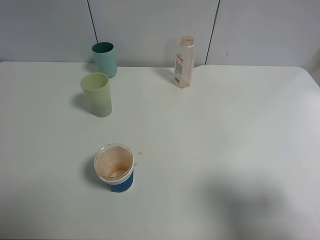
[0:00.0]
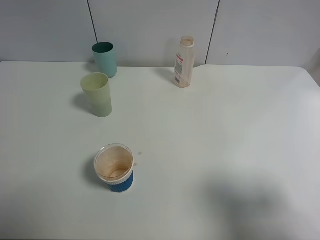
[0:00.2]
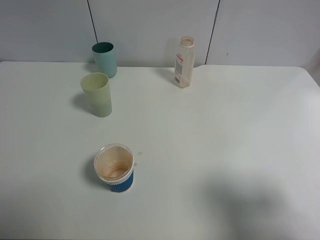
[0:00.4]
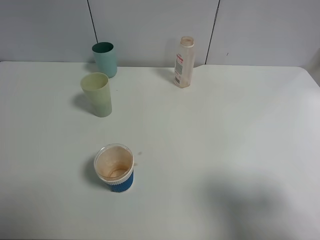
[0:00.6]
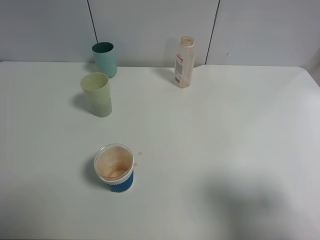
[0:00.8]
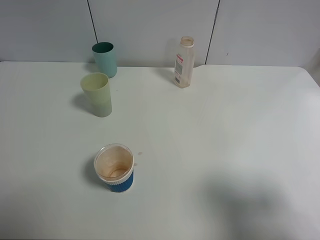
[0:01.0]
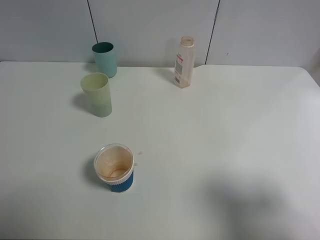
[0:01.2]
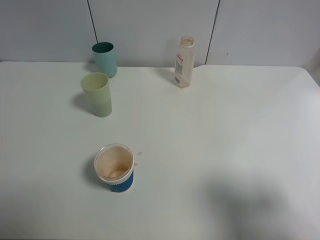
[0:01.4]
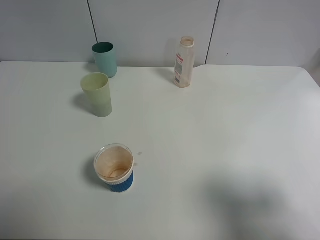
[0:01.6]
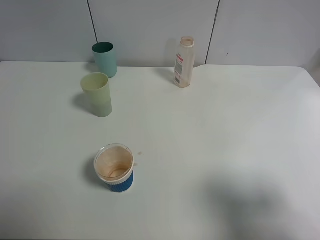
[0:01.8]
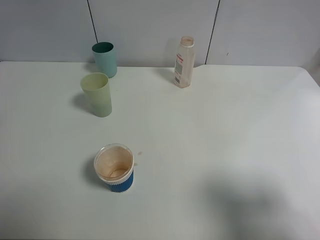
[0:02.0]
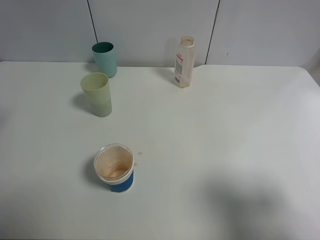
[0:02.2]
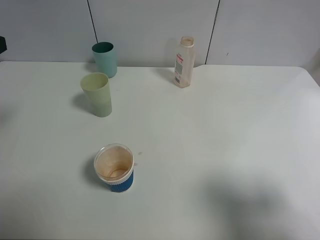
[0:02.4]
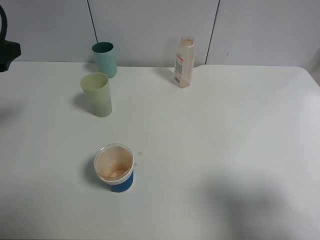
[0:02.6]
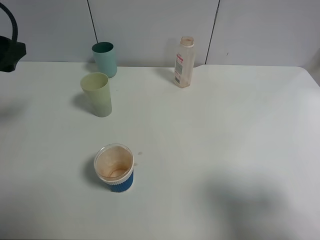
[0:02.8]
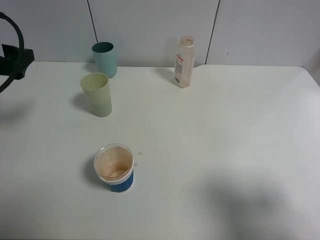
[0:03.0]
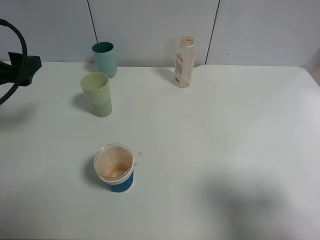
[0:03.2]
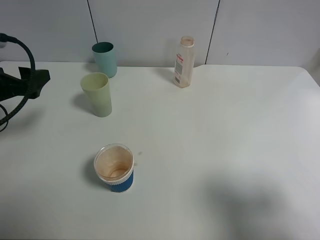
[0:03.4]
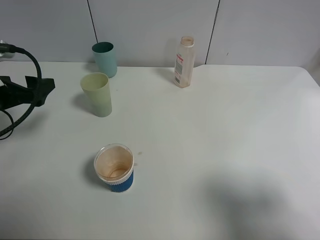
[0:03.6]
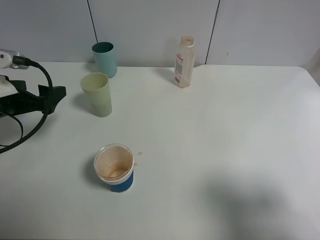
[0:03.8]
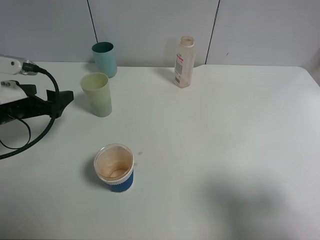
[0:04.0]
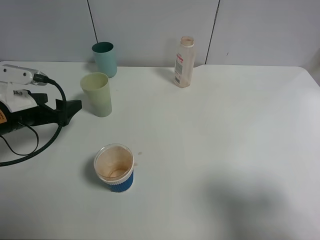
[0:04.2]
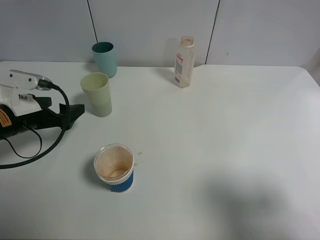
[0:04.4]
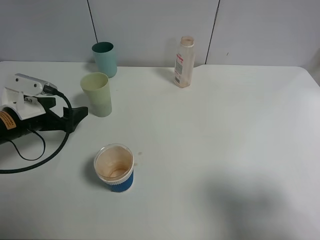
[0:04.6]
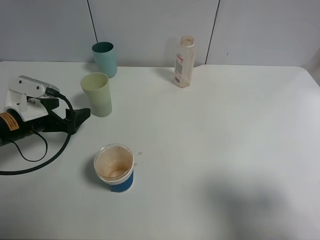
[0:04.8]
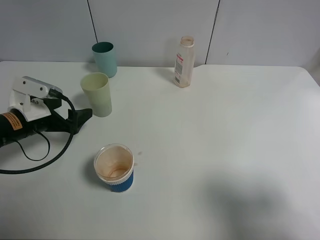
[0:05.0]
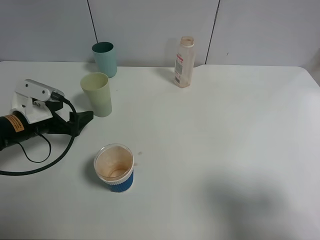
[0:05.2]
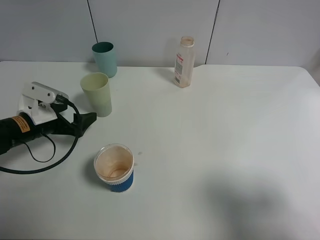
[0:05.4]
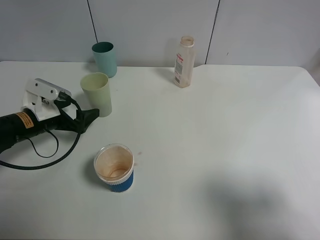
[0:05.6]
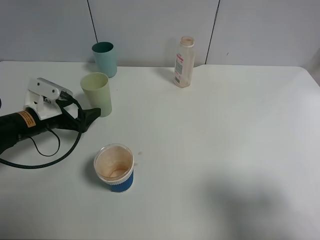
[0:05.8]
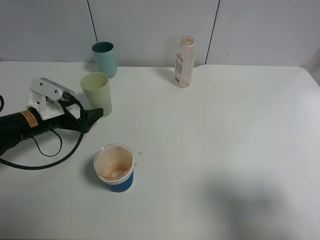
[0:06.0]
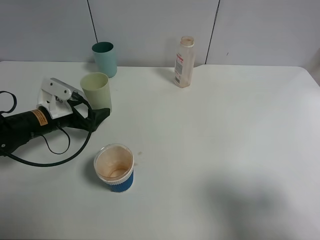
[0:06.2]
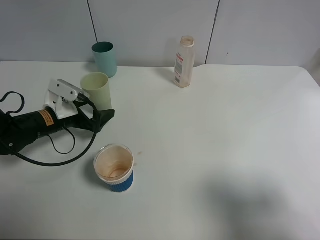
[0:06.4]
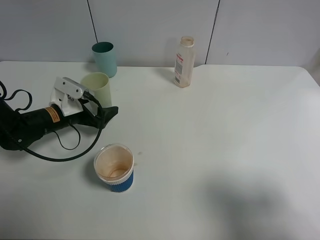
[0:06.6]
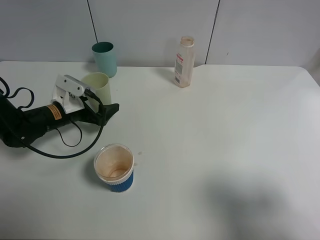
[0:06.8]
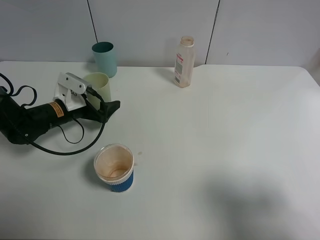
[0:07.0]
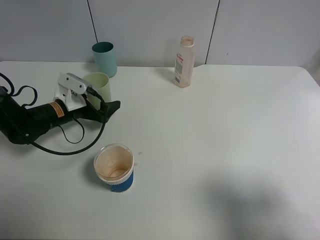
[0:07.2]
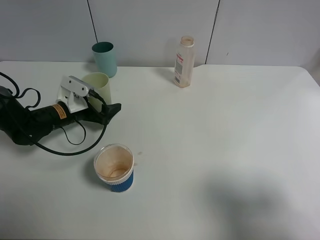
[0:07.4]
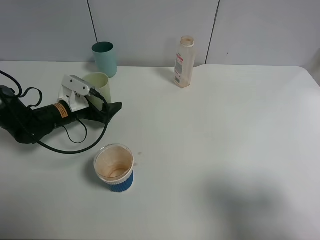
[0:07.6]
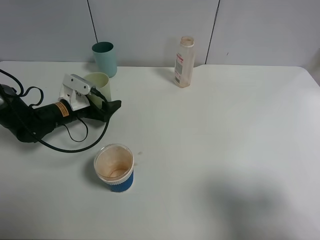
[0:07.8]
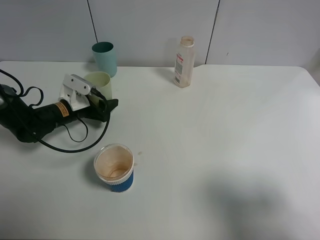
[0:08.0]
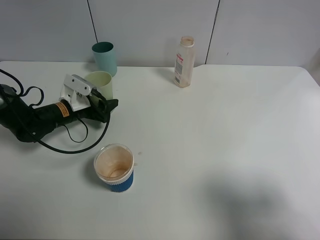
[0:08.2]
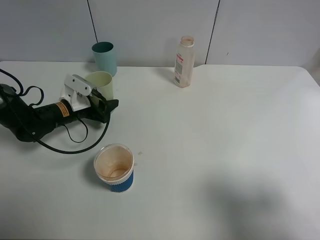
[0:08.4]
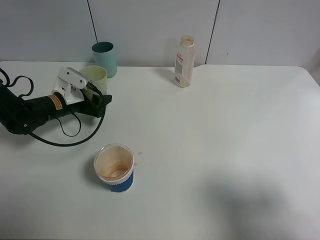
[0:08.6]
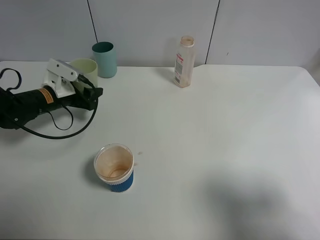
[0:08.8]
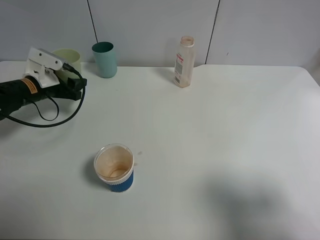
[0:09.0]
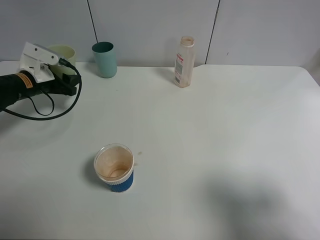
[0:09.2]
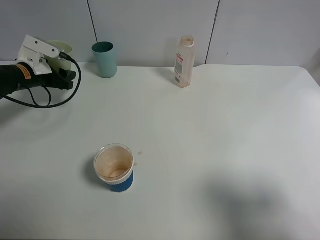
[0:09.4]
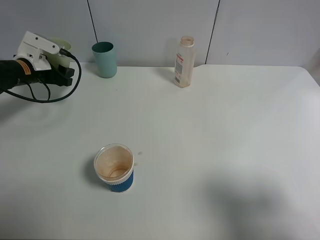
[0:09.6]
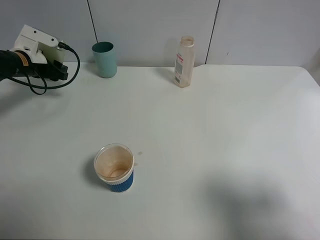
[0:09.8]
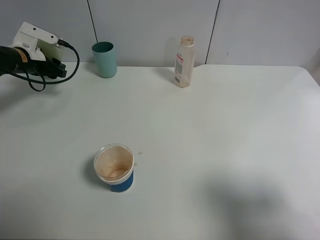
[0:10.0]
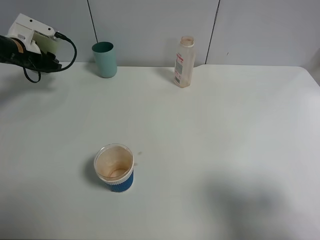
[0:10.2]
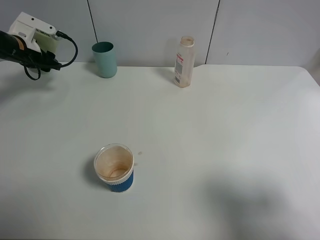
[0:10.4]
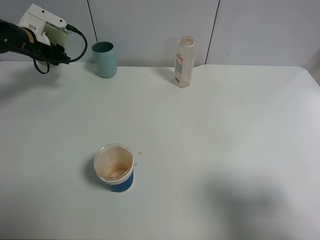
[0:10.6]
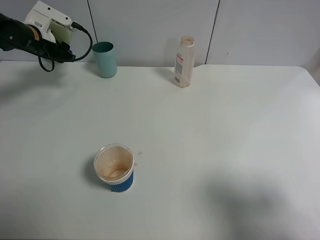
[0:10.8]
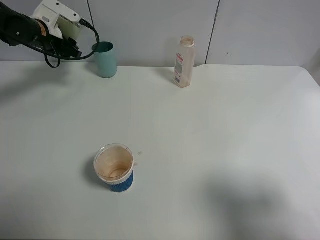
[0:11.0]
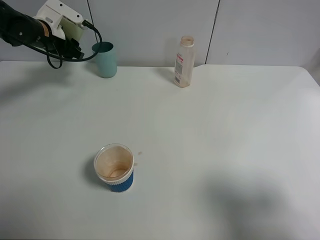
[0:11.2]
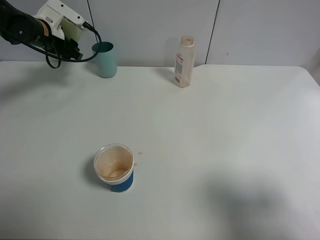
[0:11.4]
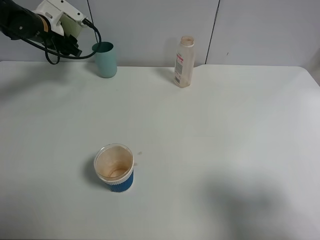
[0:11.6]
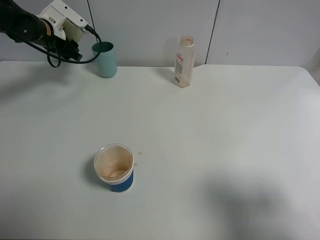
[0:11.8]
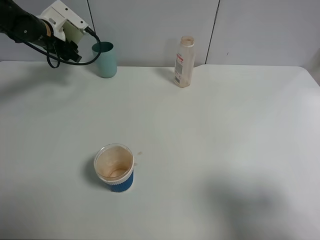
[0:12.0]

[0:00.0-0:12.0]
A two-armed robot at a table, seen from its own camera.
Task of the whole recording: use a clamp to hold the bottle of the drink, pour the beverage into a random cup, then clamp the cup containing the drink and pour the drink into another random cup.
Step, 0:00.0 to 0:09.0: Pick up the green plastic cup bottle with left gripper.
0:01.6 to 0:03.0: The left gripper shifts some 20 cm forward and downward.
0:03.0 to 0:04.4: The left gripper heads downward, covering some 10 cm.
0:04.4 to 0:06.0: The left gripper changes place by roughly 5 cm.
0:06.0 to 0:07.6: The left gripper moves forward, approximately 5 cm.
0:07.6 to 0:09.0: The left gripper goes roughly 10 cm to the left and upward, and closes its fingers.
0:09.0 to 0:10.4: The left gripper is displaced forward and upward by roughly 10 cm.
0:10.4 to 0:12.0: The left gripper moves to the right, roughly 5 cm.

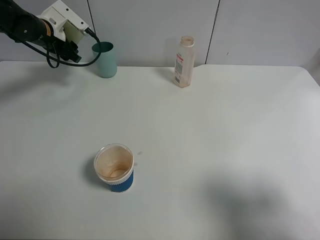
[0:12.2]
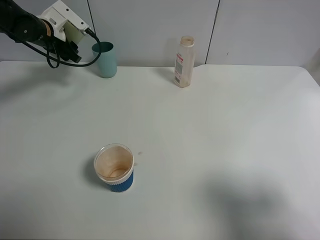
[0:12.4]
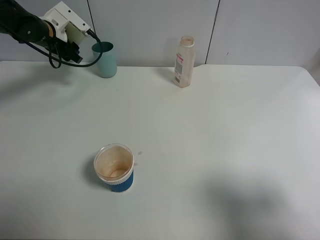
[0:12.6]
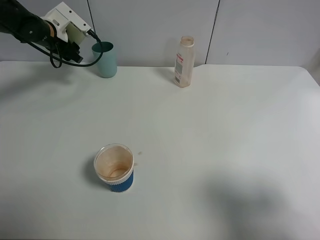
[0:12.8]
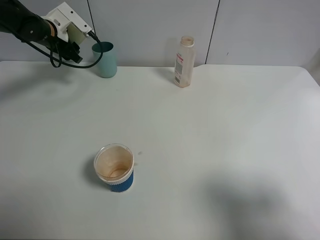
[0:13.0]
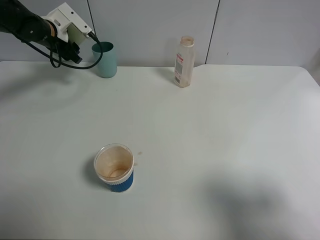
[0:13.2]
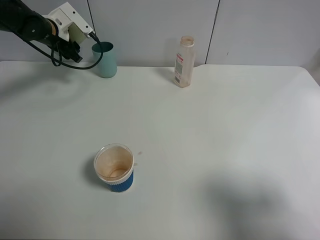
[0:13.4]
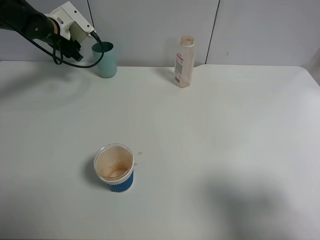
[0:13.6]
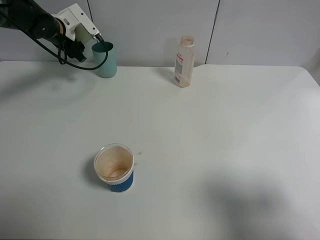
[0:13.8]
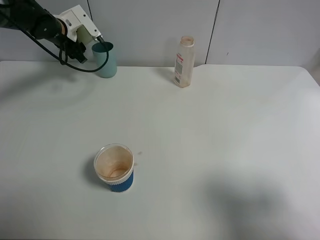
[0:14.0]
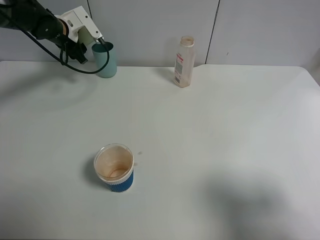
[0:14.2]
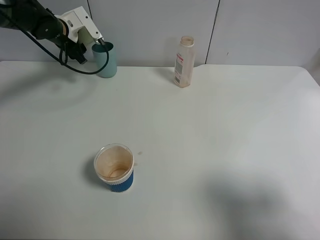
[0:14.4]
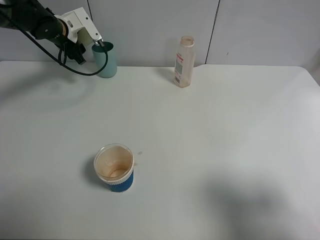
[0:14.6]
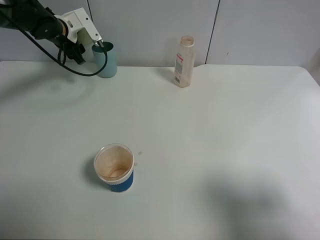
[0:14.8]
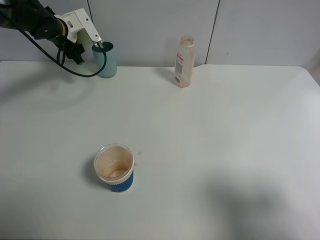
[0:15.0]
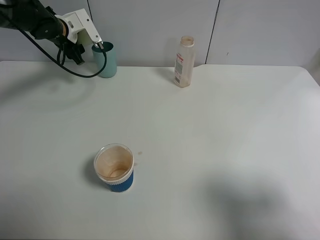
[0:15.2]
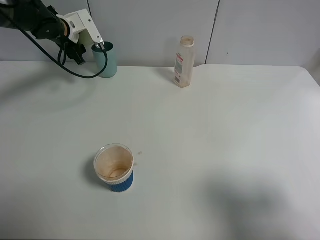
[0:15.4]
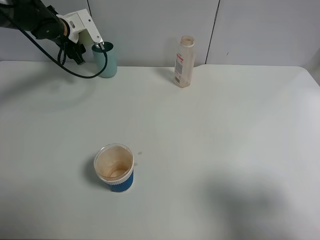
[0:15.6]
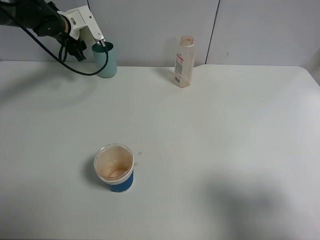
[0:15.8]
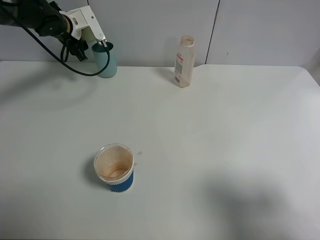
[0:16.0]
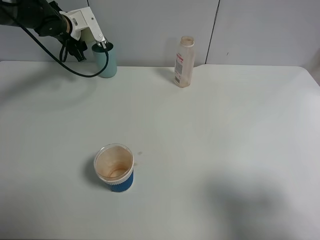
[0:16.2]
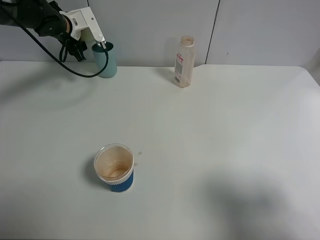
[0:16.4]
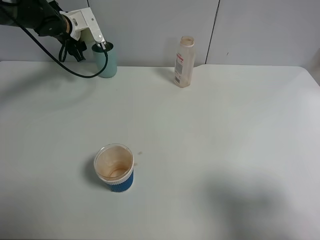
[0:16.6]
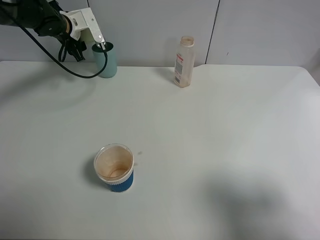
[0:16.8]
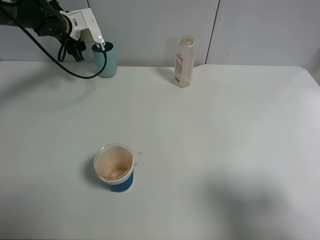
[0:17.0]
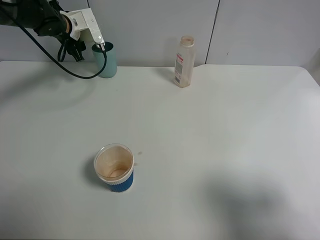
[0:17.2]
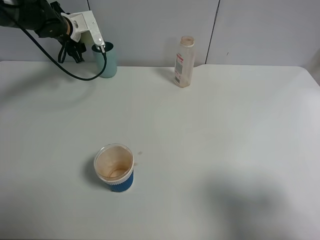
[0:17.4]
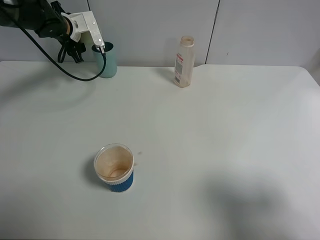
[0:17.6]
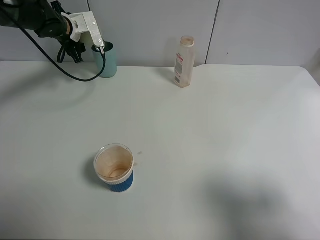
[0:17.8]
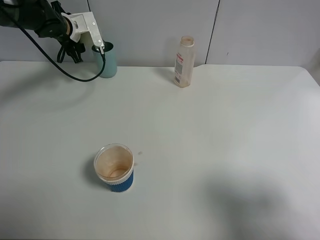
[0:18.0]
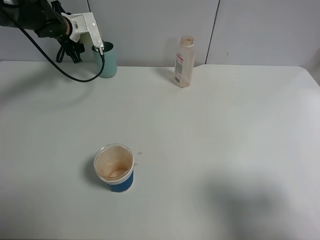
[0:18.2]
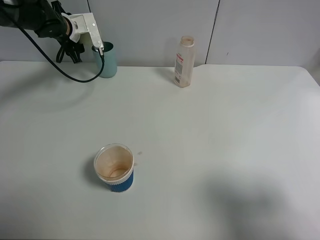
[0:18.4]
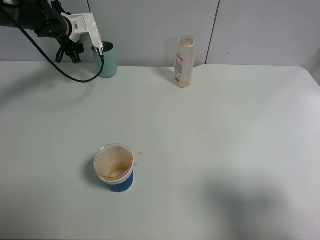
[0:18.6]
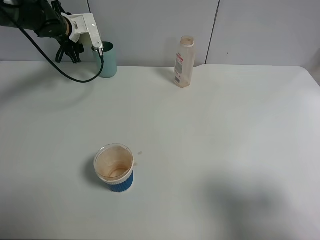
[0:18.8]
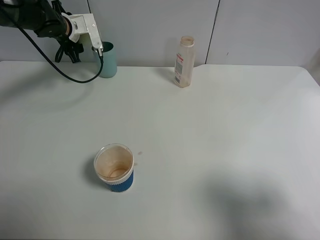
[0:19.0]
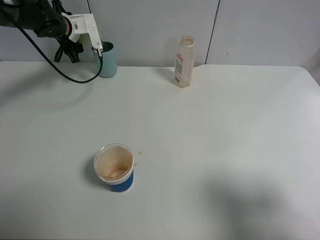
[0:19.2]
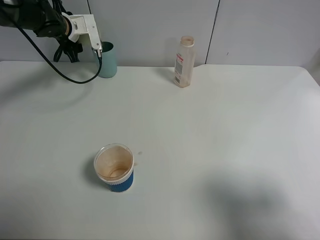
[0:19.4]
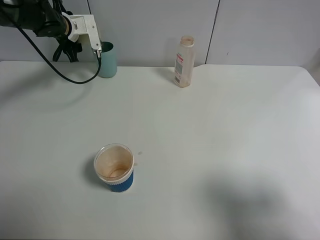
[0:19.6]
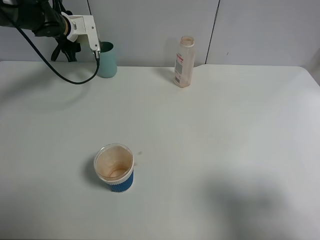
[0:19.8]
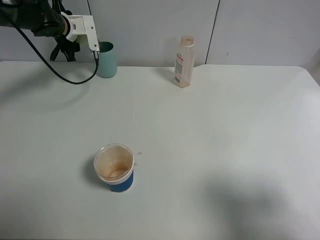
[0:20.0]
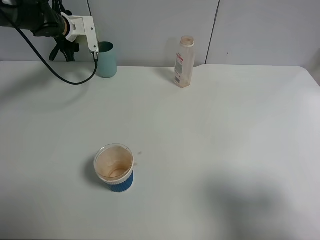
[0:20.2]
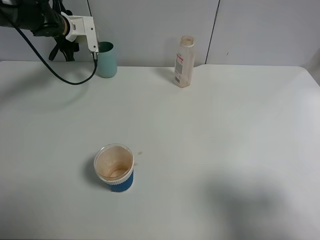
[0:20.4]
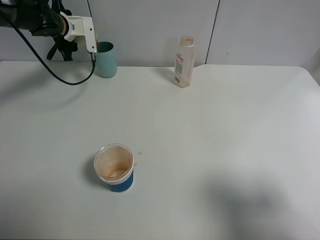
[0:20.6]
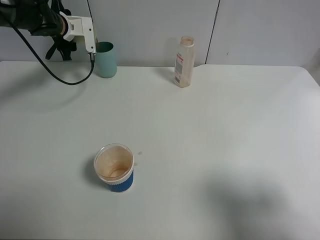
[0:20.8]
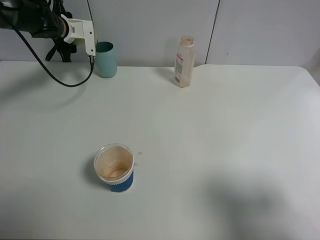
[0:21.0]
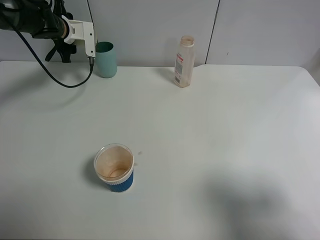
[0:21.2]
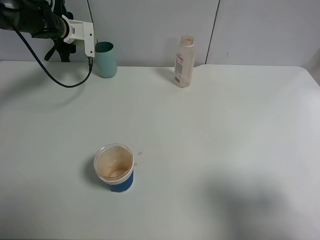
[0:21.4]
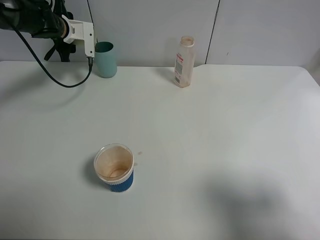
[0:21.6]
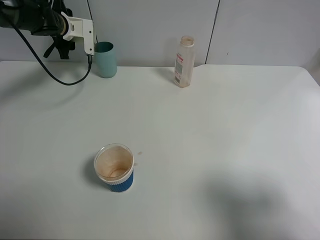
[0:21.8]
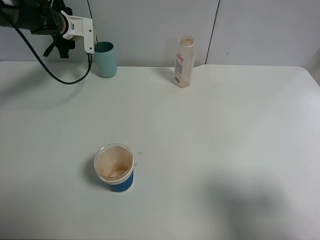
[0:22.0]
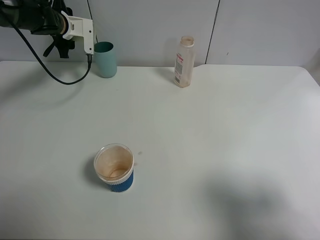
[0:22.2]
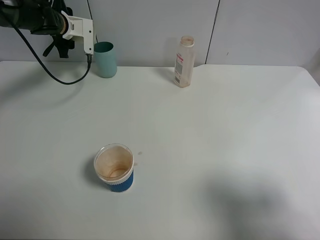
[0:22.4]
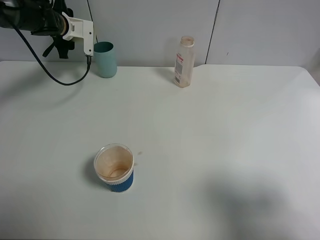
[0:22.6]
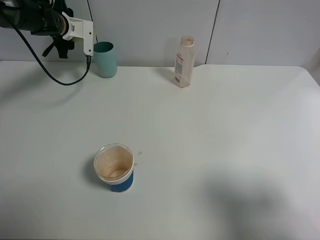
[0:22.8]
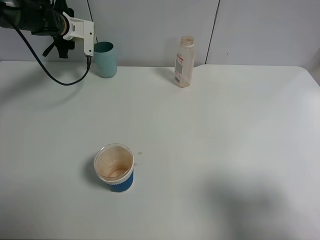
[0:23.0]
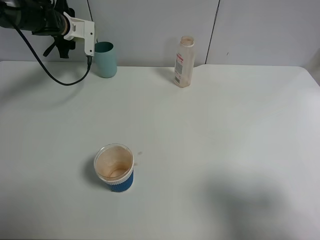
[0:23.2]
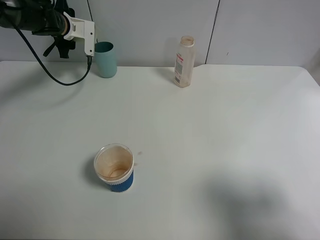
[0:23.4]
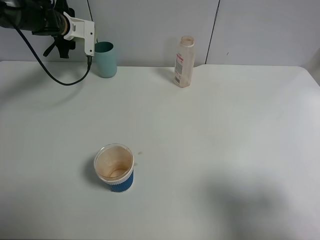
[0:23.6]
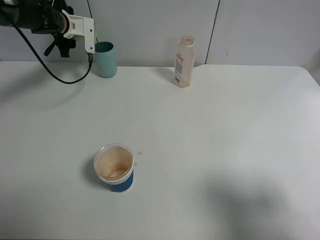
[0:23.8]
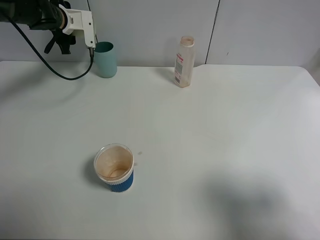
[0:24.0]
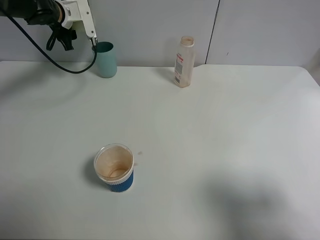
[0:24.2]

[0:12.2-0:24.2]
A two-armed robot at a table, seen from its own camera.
Task of the whole recording: use a clamp to hold the bottle of the drink, pour the beverage into a random cup, then clamp the cup containing the drink and pour the drink into another random cup.
0:12.2 to 0:13.8: The grippers make only small movements.
0:13.8 to 0:16.6: The grippers stay close to where they were, moving slightly.
0:16.6 to 0:19.8: The grippers move only a little.
0:19.8 to 0:21.2: There are only small adjustments of the grippers.
0:21.2 to 0:22.6: Neither gripper changes place.
0:22.6 to 0:24.2: The grippers move only a little.
